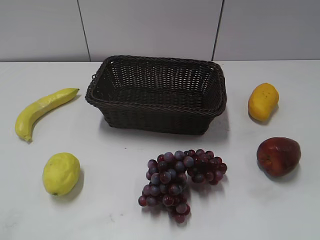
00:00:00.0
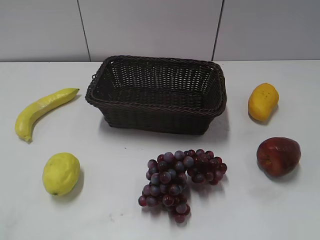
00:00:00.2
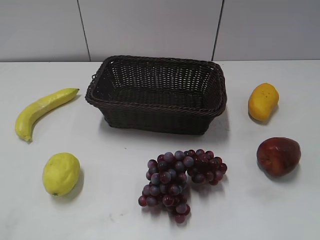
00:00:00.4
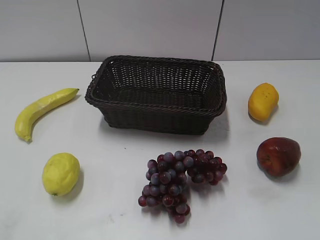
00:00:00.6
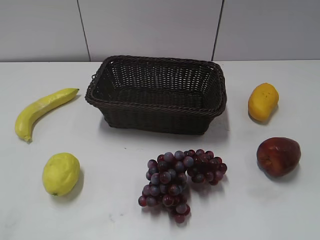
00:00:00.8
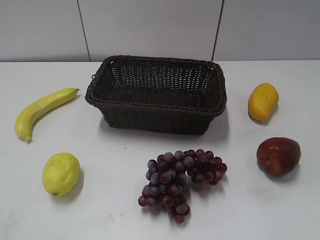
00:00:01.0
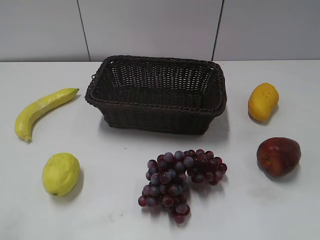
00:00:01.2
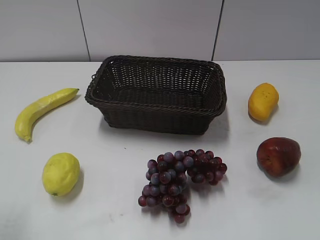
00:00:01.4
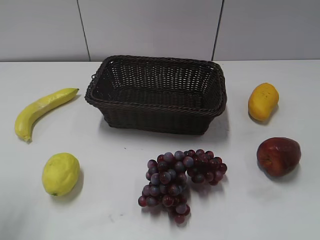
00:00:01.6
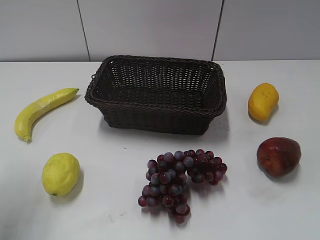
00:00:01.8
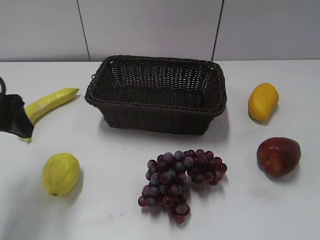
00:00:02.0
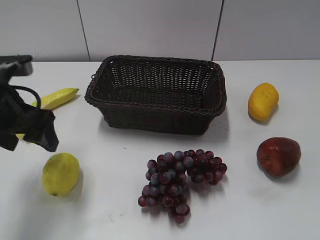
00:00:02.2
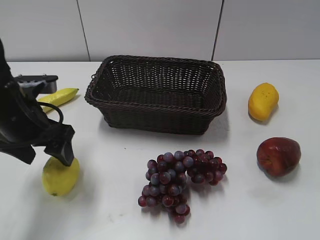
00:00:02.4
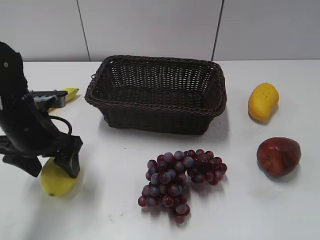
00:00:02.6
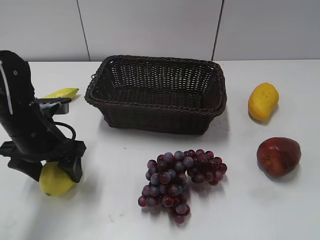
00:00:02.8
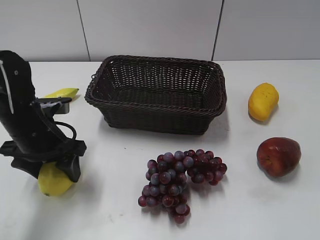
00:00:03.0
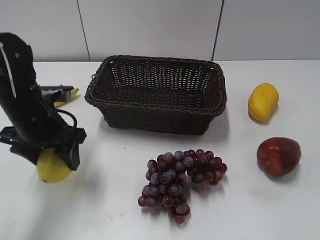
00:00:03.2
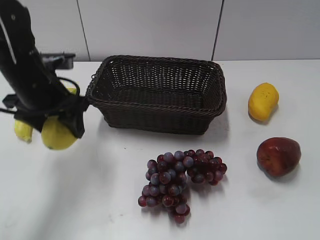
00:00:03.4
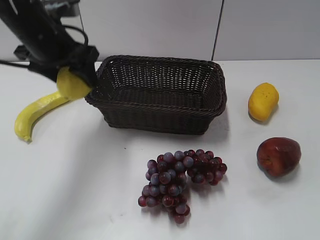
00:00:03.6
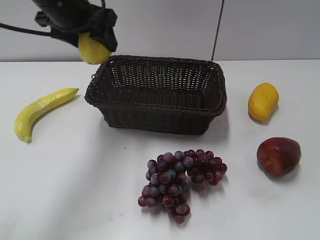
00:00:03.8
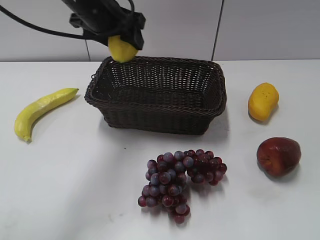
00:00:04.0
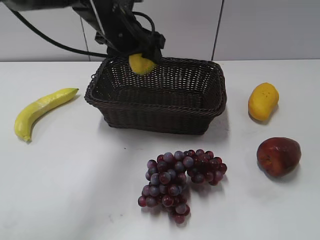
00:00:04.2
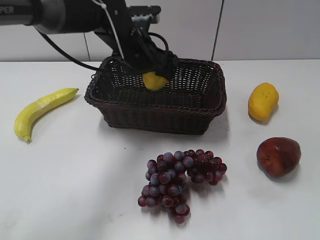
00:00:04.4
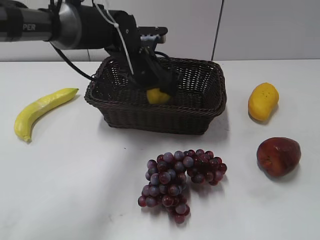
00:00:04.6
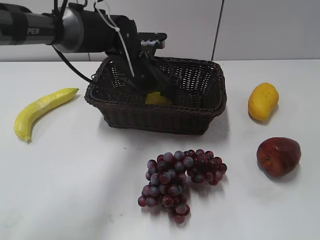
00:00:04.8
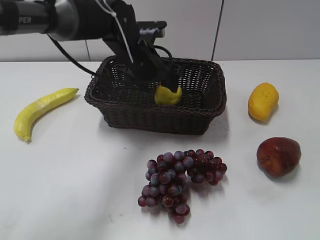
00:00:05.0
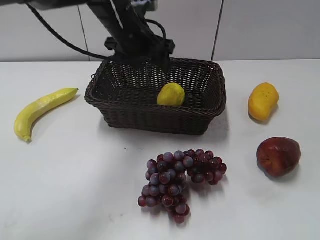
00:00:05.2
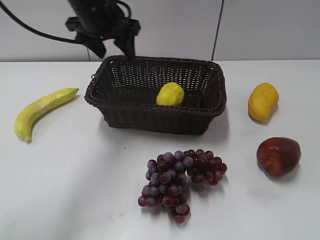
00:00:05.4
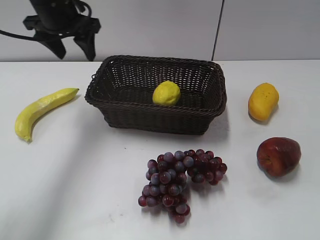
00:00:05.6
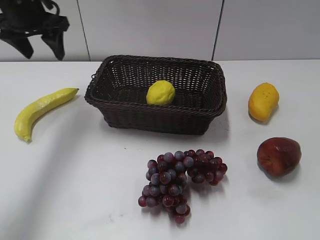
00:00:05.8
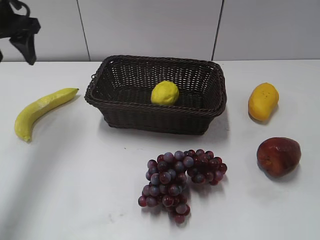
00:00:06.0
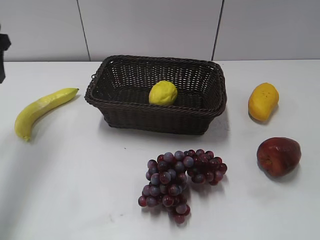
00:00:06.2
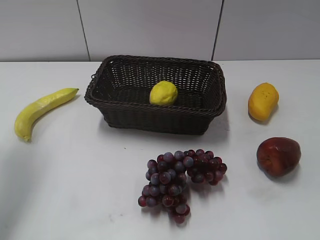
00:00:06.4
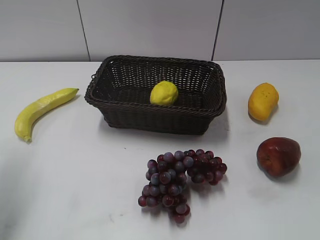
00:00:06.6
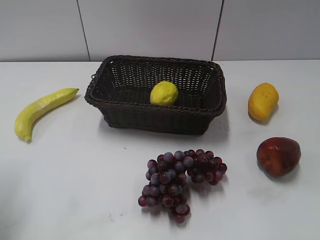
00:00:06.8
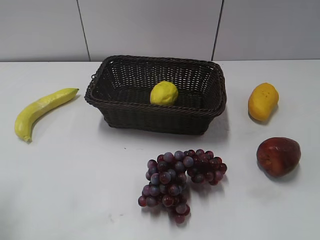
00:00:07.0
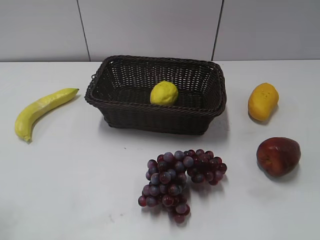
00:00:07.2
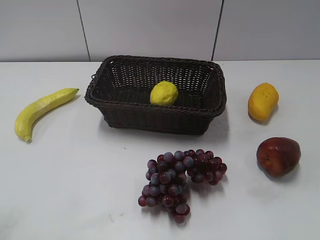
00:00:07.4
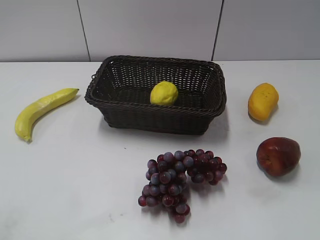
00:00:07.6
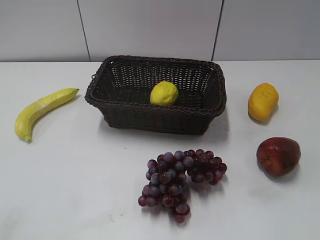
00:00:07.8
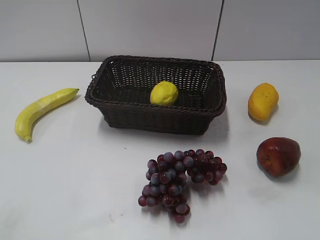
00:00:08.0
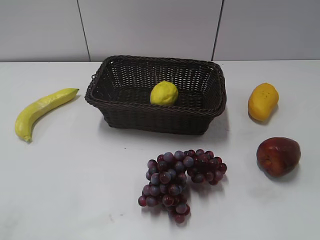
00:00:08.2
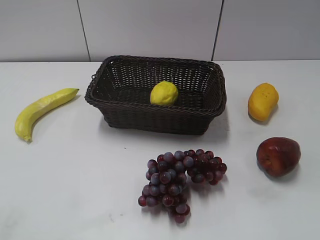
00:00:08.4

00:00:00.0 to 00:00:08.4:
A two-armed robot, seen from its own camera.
Step, 00:00:02.0 to 00:00:03.0: Grasp the lemon with left gripper.
Step, 00:00:03.4 to 00:00:05.0: Place the lemon in the basket with left gripper.
00:00:01.4 to 00:00:02.8: The left gripper travels downward, forward and to the right by approximately 25 cm, and opens up.
00:00:02.8 to 00:00:04.2: The left gripper travels to the right, forward and upward by about 20 cm, and closes its fingers.
00:00:04.2 to 00:00:05.6: The left gripper shifts about 10 cm to the left, and opens and closes again.
00:00:05.6 to 00:00:07.0: The left gripper shifts roughly 30 cm backward and to the left.
